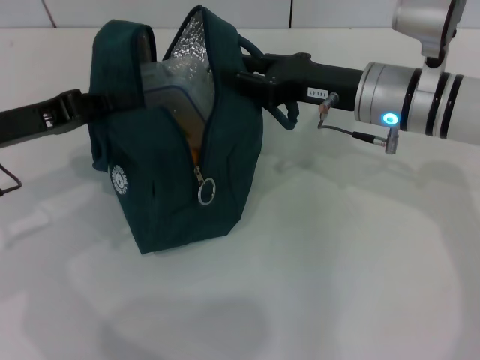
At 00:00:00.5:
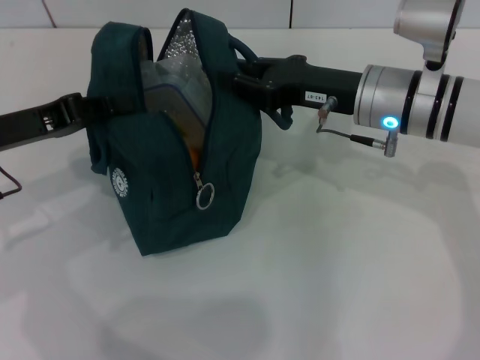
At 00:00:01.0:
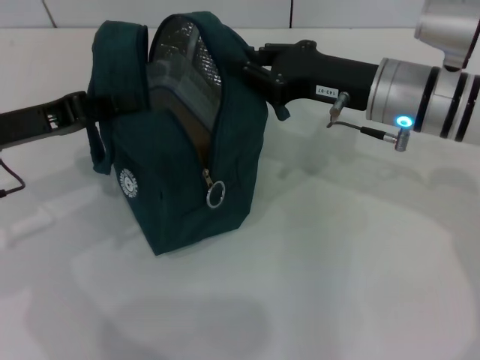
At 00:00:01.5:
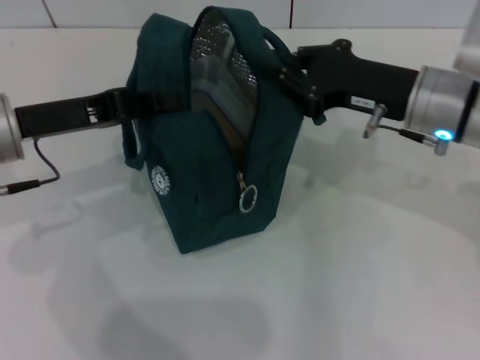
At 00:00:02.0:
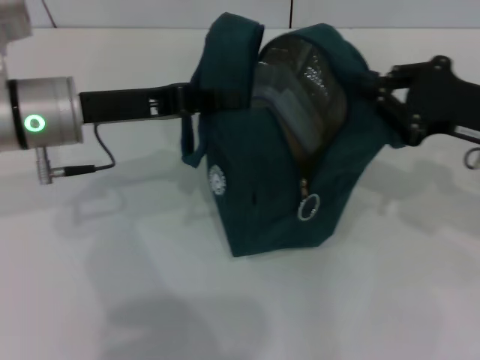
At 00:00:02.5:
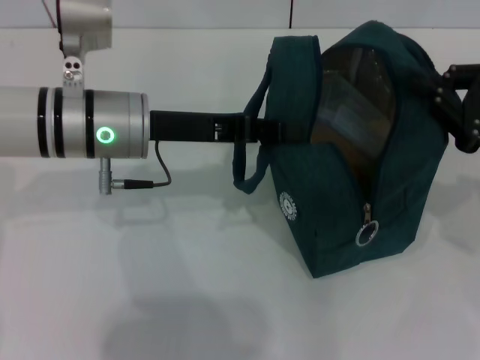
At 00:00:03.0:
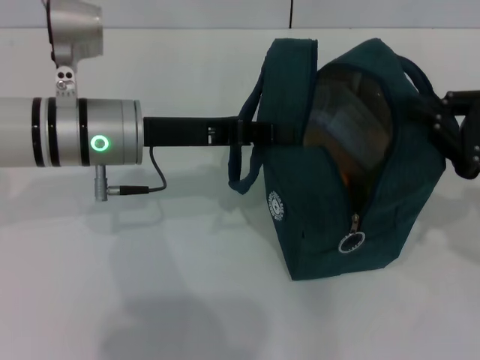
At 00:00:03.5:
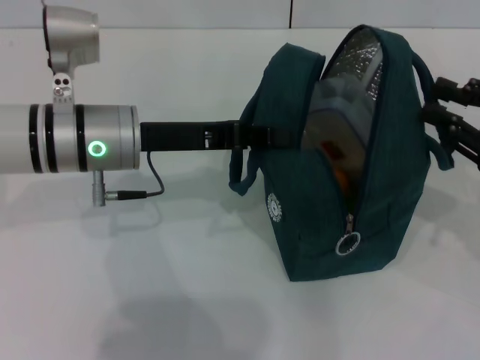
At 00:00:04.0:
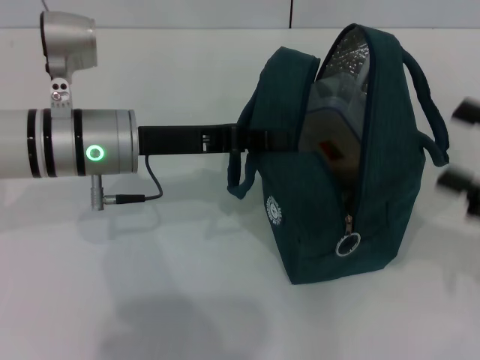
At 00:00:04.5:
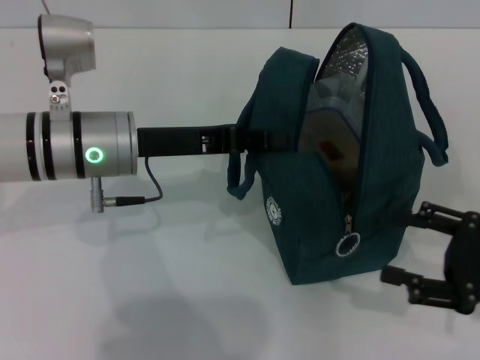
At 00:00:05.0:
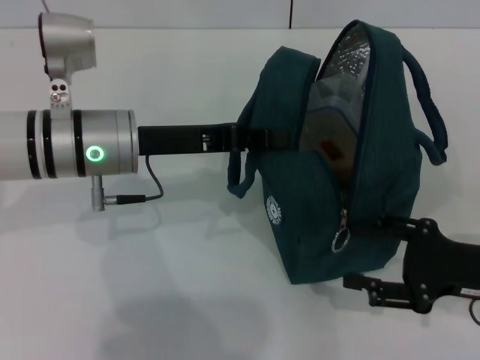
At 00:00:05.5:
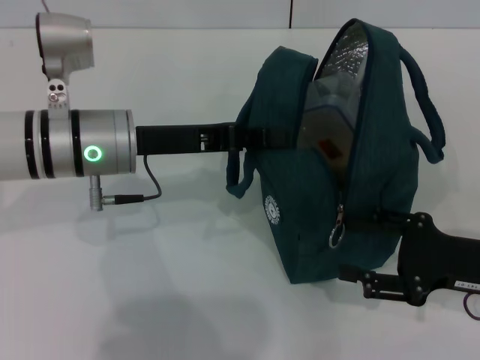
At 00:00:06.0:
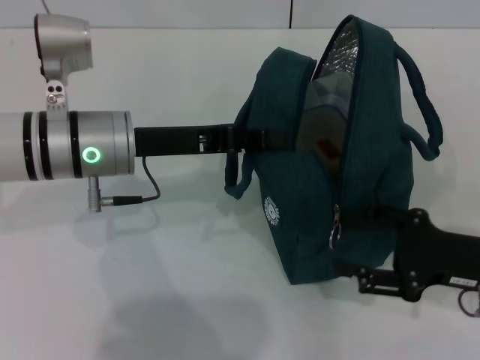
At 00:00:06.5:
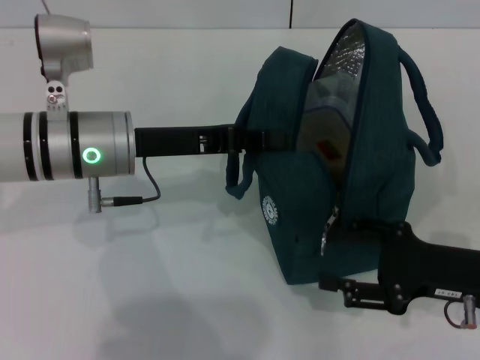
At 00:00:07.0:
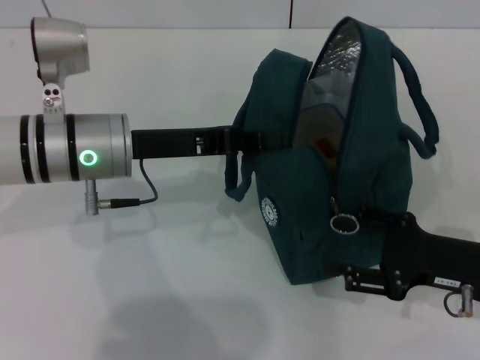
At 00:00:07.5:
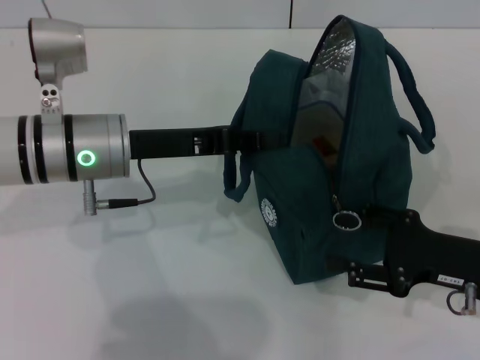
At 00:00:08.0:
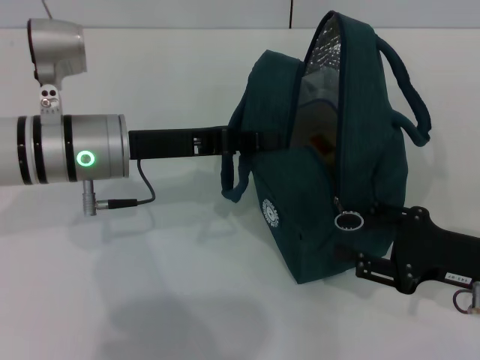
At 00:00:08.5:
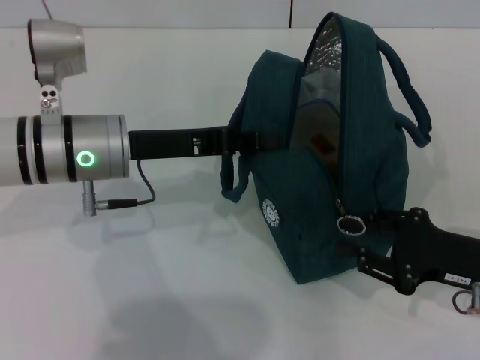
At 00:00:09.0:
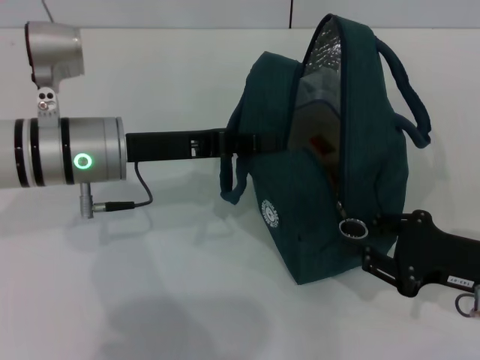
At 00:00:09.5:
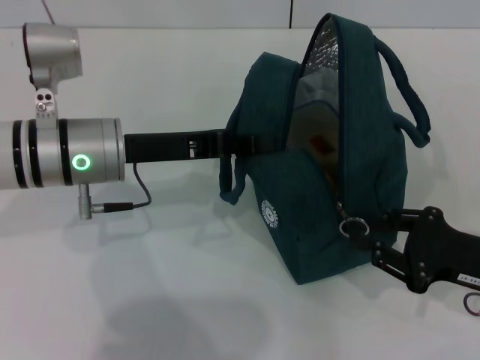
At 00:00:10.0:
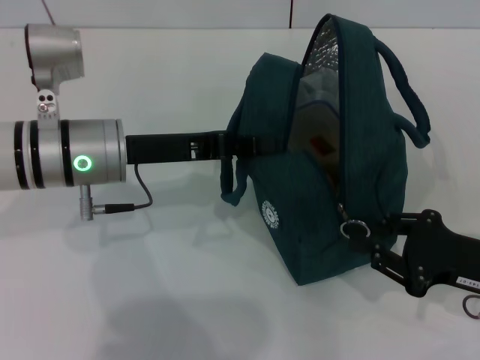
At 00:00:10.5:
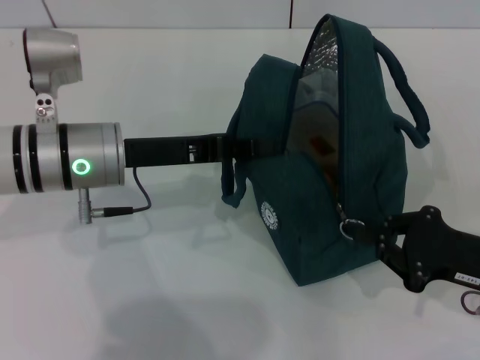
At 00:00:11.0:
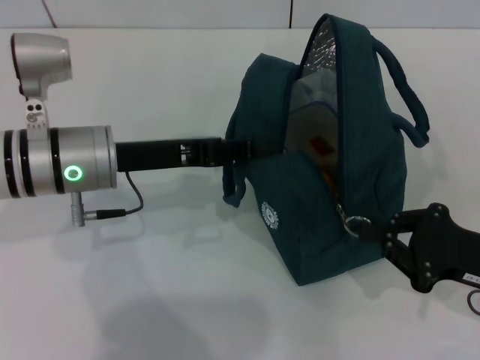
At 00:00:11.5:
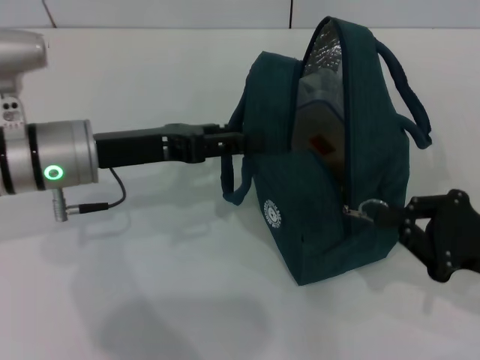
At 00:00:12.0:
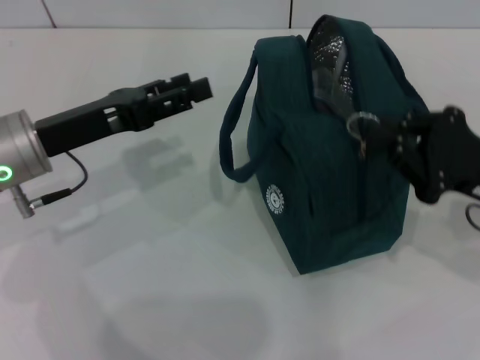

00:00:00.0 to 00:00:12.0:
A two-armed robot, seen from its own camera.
Step, 00:00:00.0 to 00:00:03.0: Hold the lunch bag with your right hand.
Step, 00:00:04.0 to 00:00:11.5: Hold the lunch bag with your left hand.
00:00:00.0 to 00:00:02.0: The left gripper is displaced to the right by roughly 10 cm; the right gripper travels to the right and backward by roughly 15 cm, and closes its fingers.
00:00:02.0 to 00:00:04.0: The right gripper shifts about 10 cm backward and to the right, and opens up.
00:00:04.0 to 00:00:06.0: The right gripper moves downward and to the left, about 10 cm.
00:00:06.0 to 00:00:08.0: The grippers make only small movements.
00:00:08.0 to 00:00:10.0: The right gripper closes its fingers.
00:00:10.0 to 00:00:12.0: The right gripper is displaced upward by about 5 cm; the left gripper shifts about 5 cm to the left, and opens.

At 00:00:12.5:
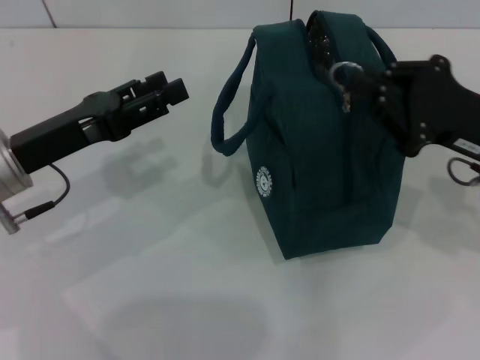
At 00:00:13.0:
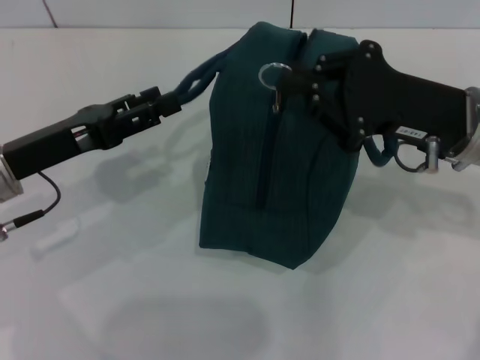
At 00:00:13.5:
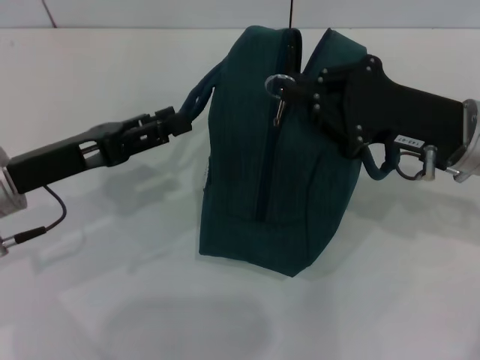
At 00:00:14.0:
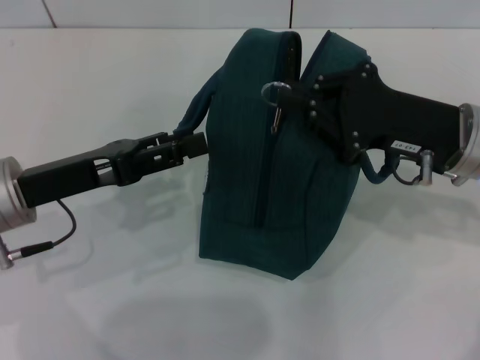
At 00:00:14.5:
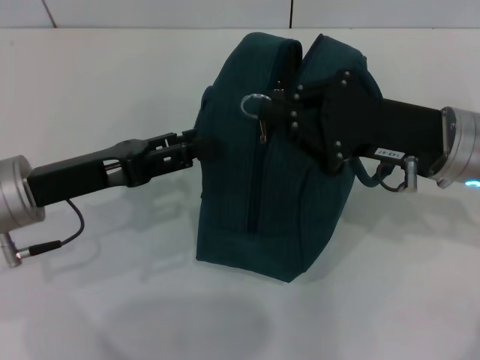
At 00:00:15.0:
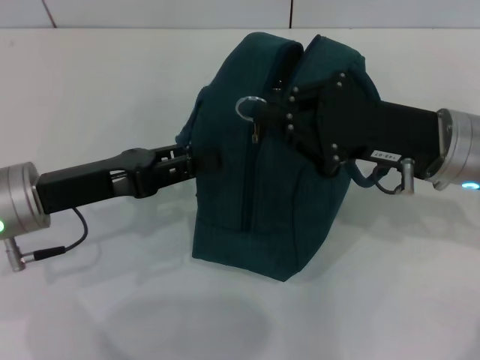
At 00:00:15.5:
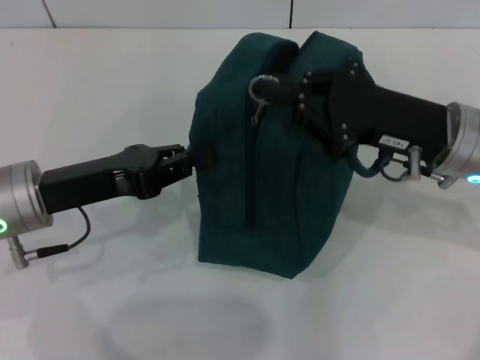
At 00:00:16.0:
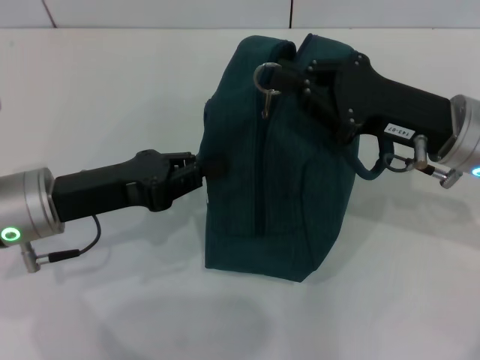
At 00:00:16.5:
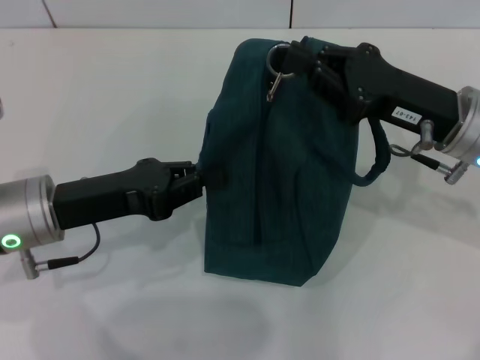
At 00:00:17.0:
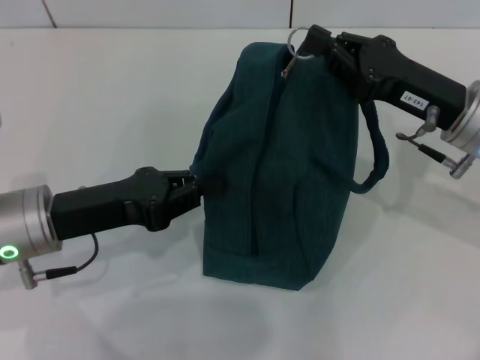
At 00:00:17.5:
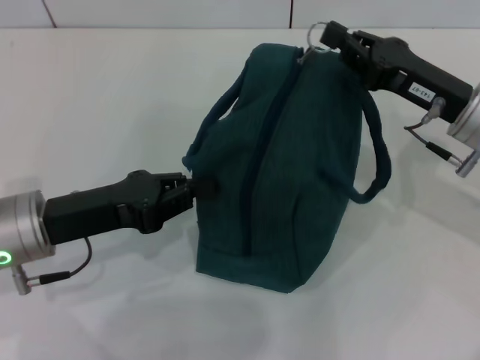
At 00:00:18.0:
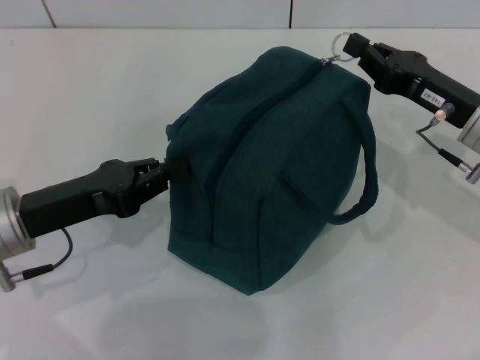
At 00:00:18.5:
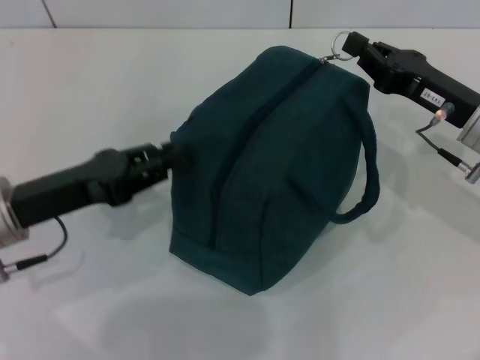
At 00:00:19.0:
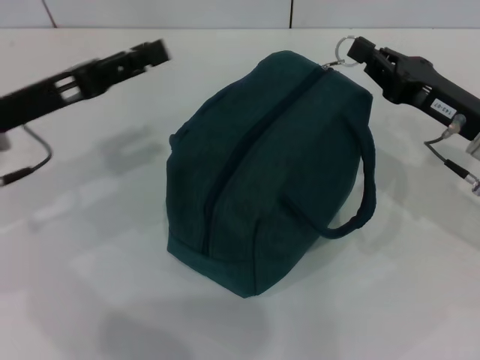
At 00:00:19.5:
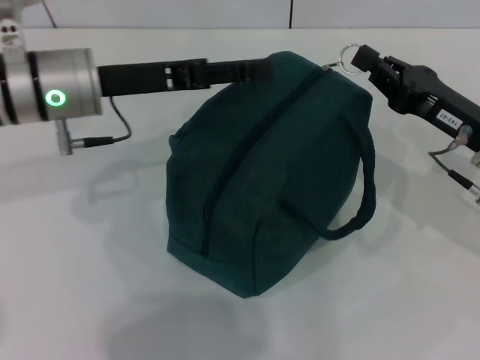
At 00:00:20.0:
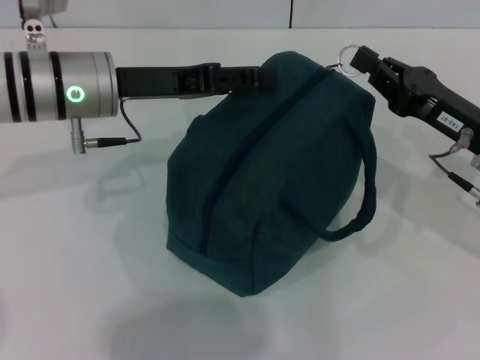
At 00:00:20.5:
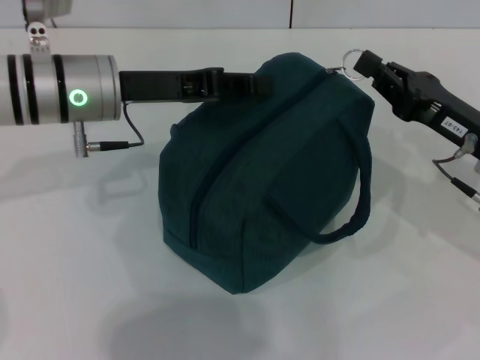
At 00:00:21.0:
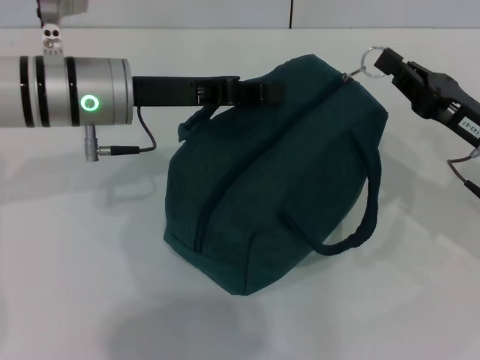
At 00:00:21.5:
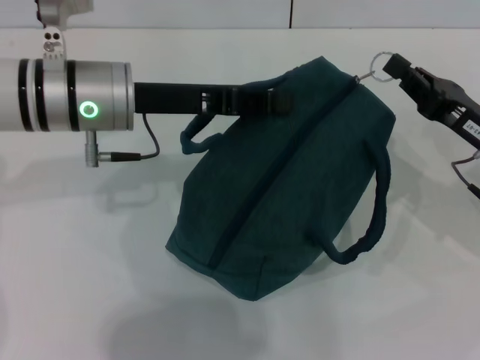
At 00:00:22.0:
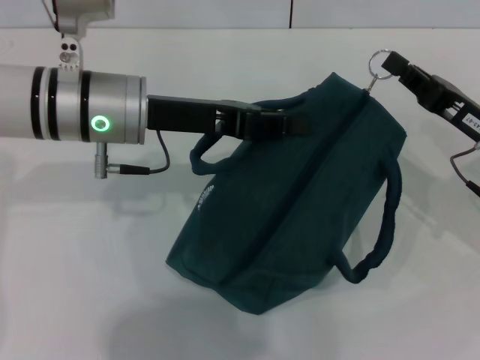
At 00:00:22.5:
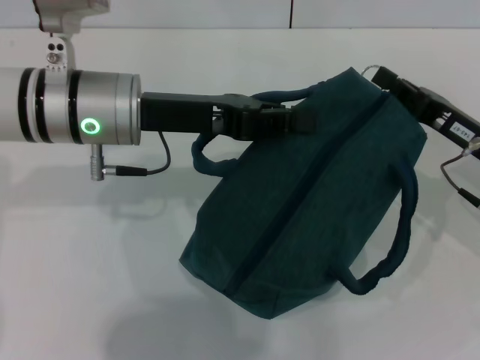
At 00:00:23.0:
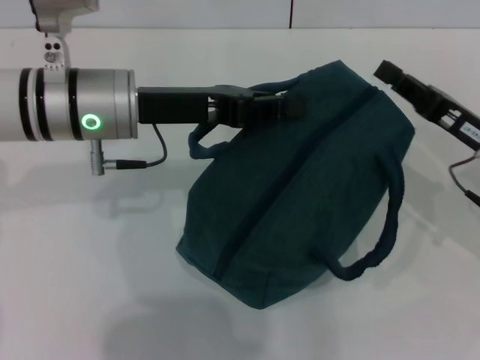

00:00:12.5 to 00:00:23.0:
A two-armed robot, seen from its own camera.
Step, 00:00:12.5 to 00:00:22.5: Zip up the lunch bag with your right hand.
00:00:12.5 to 00:00:14.5: The right gripper is displaced to the left by about 5 cm.
00:00:14.5 to 00:00:16.5: The left gripper closes.
00:00:16.5 to 00:00:19.0: The left gripper changes place by some 5 cm, and opens. Meanwhile the right gripper ends up some 5 cm from where it was.
00:00:19.0 to 00:00:21.0: The left gripper goes approximately 10 cm to the right, and closes its fingers.
00:00:21.0 to 00:00:23.0: There are only small adjustments of the grippers.

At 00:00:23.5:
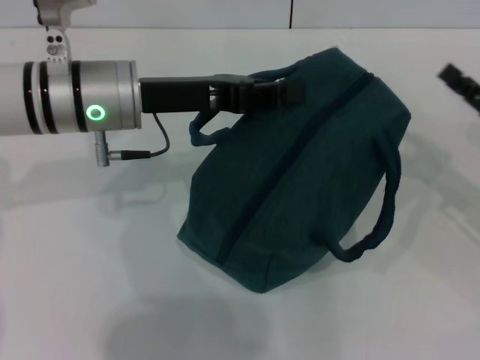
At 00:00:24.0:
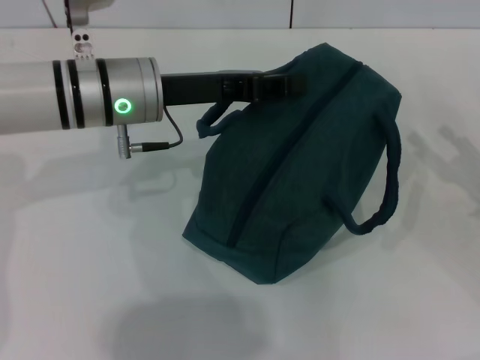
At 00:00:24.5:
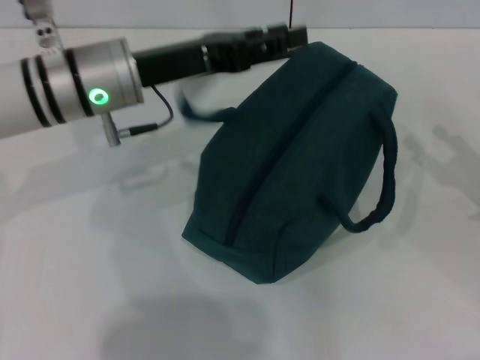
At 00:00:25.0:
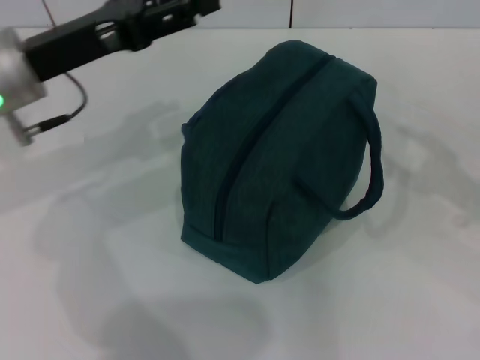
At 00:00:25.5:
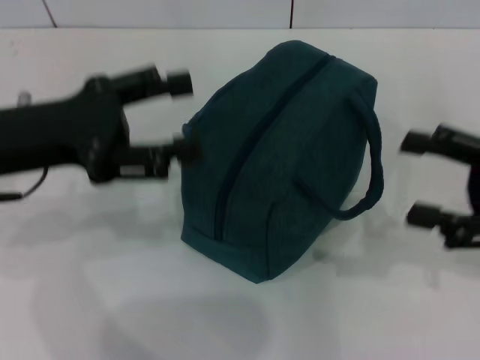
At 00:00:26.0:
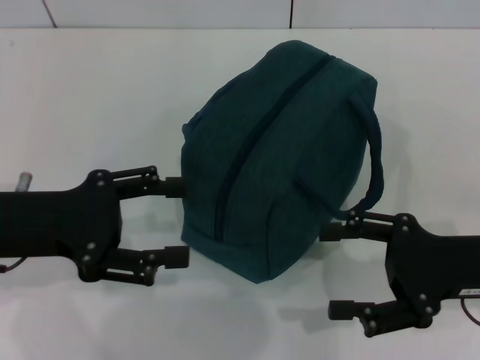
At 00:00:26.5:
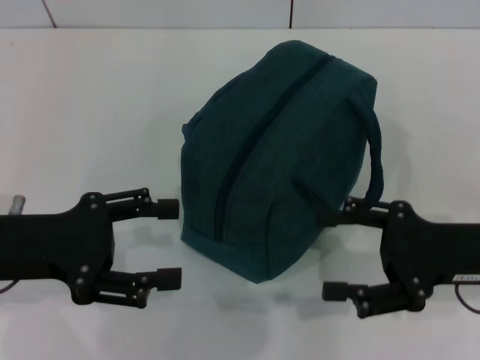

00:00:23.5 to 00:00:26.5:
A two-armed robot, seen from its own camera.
00:00:23.5 to 00:00:25.0: The right gripper shifts by some 5 cm, and opens its fingers, while the left gripper moves to the left, about 5 cm, and opens its fingers.
00:00:25.0 to 00:00:26.5: The right gripper moves to the left, approximately 10 cm, while the left gripper is displaced backward by roughly 10 cm.
